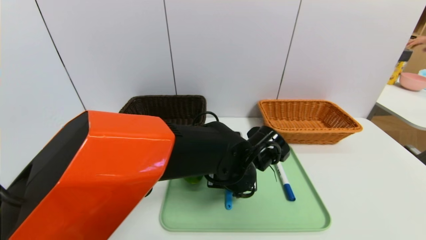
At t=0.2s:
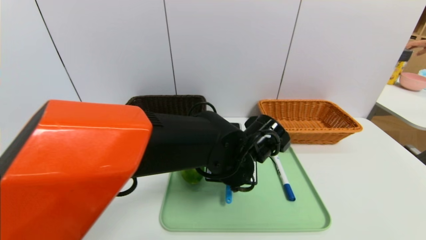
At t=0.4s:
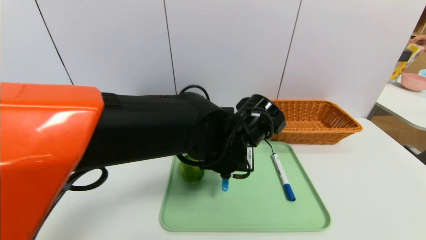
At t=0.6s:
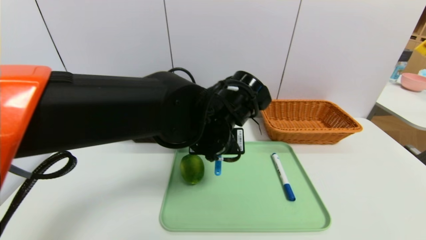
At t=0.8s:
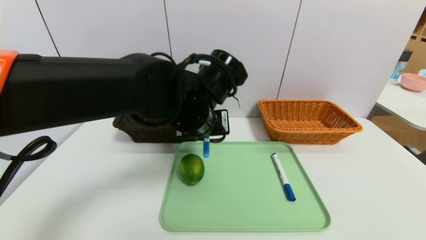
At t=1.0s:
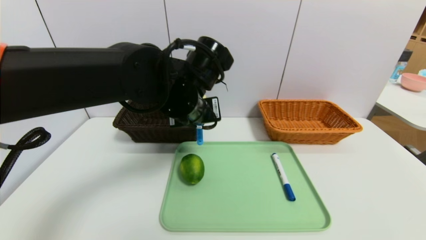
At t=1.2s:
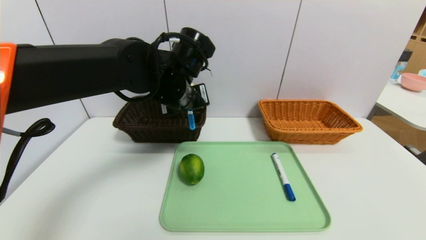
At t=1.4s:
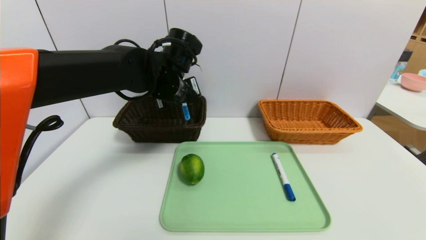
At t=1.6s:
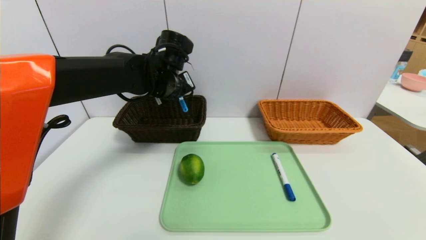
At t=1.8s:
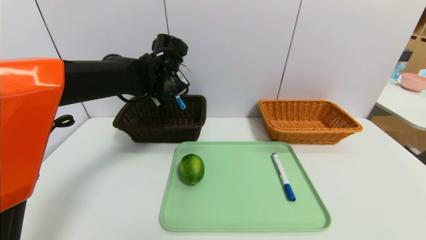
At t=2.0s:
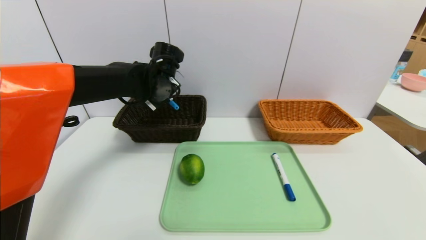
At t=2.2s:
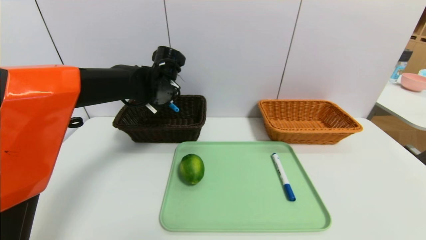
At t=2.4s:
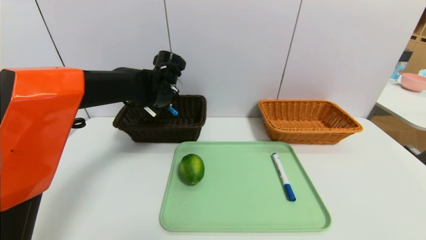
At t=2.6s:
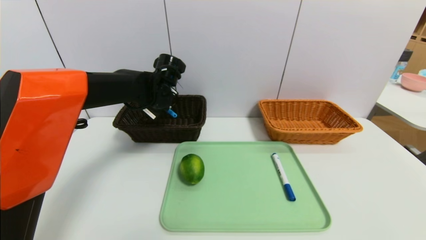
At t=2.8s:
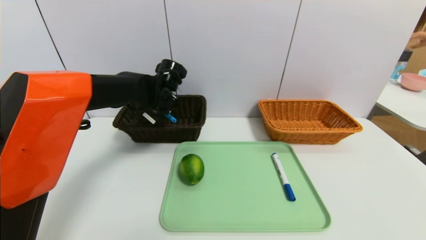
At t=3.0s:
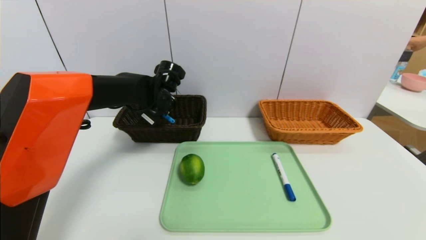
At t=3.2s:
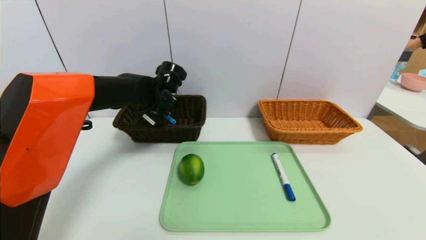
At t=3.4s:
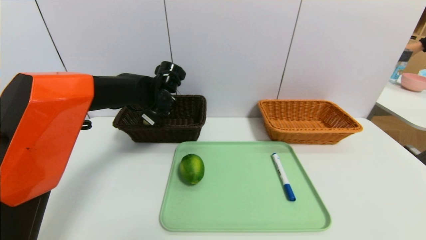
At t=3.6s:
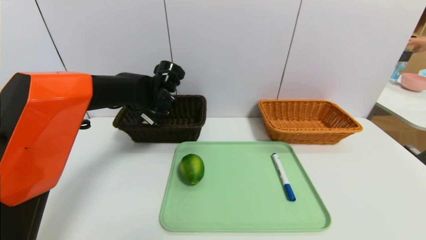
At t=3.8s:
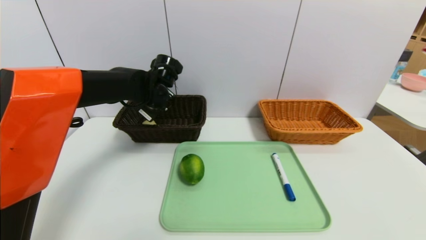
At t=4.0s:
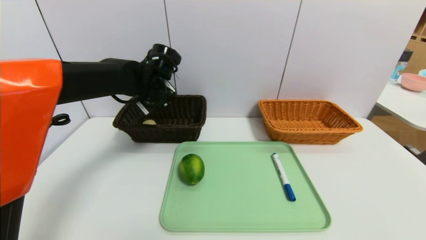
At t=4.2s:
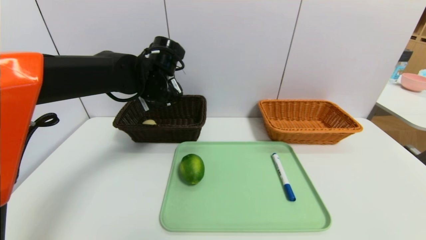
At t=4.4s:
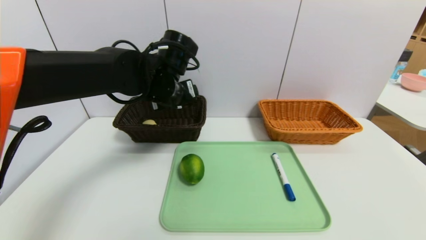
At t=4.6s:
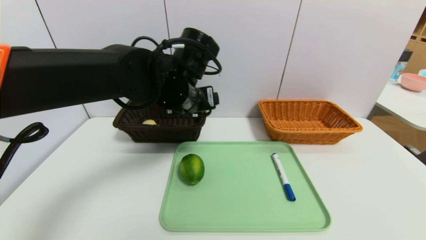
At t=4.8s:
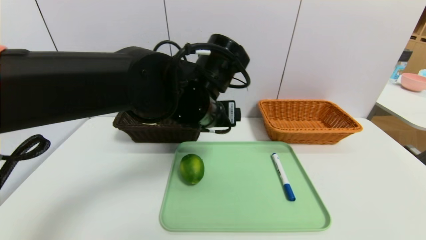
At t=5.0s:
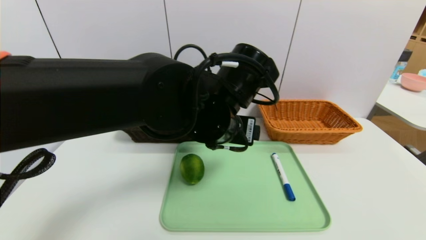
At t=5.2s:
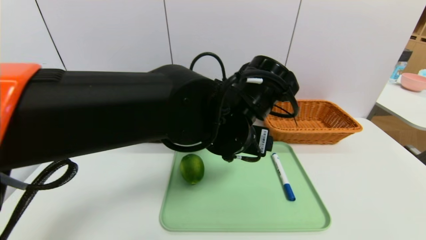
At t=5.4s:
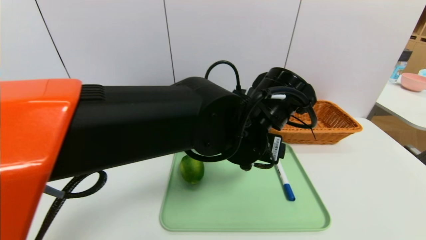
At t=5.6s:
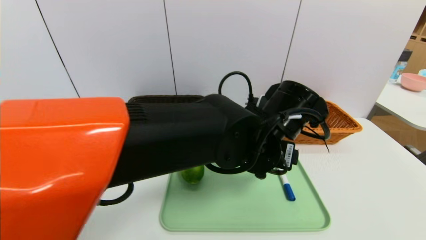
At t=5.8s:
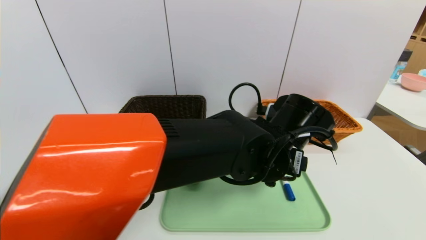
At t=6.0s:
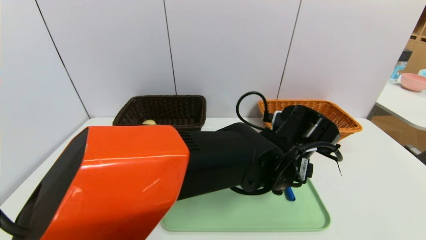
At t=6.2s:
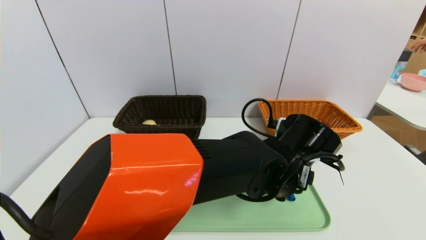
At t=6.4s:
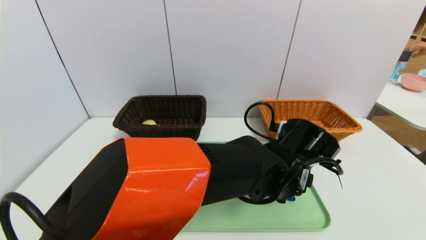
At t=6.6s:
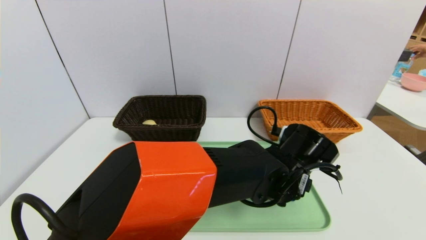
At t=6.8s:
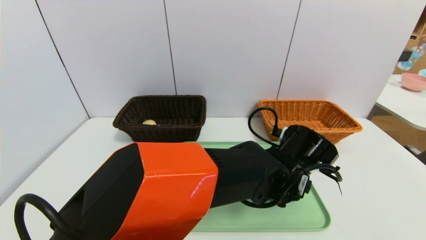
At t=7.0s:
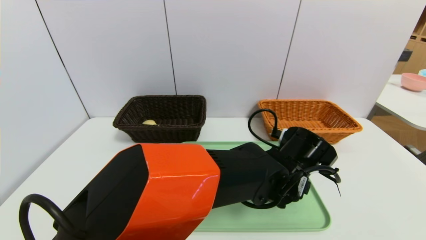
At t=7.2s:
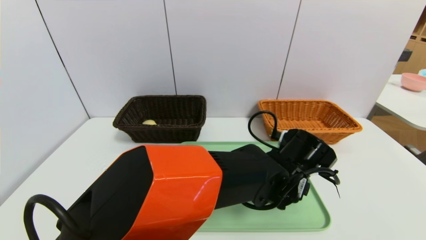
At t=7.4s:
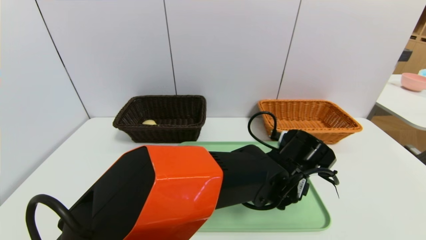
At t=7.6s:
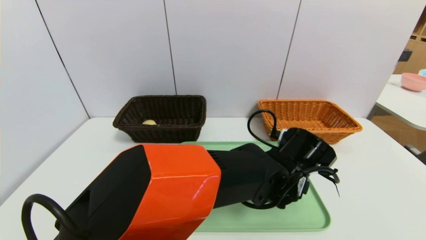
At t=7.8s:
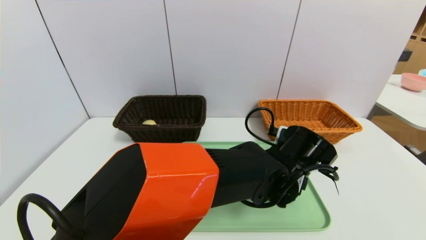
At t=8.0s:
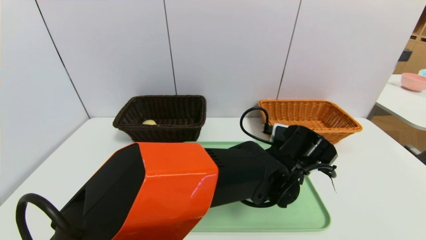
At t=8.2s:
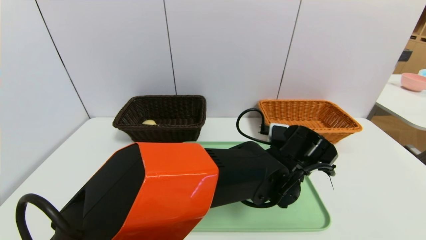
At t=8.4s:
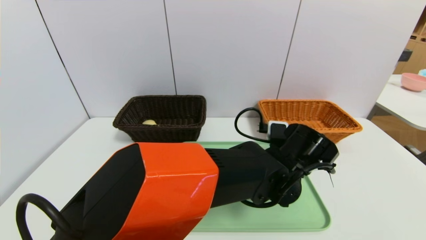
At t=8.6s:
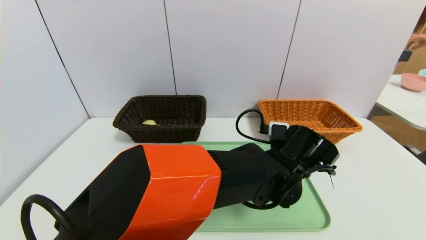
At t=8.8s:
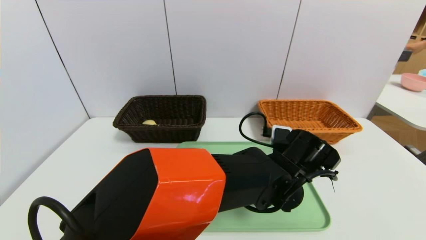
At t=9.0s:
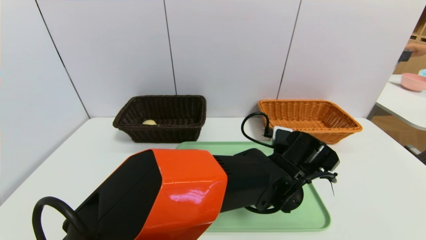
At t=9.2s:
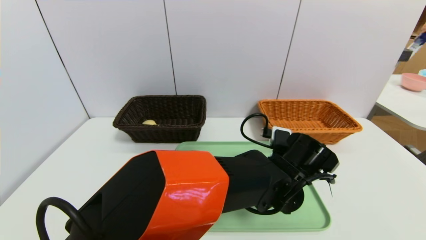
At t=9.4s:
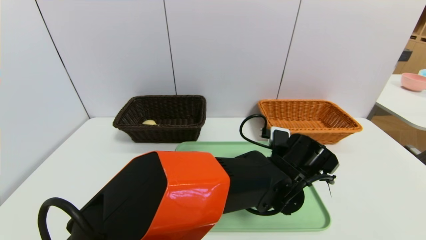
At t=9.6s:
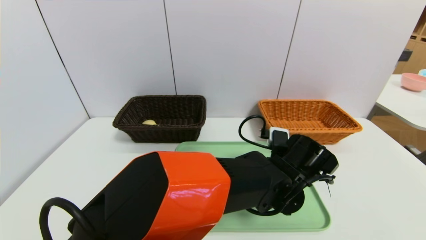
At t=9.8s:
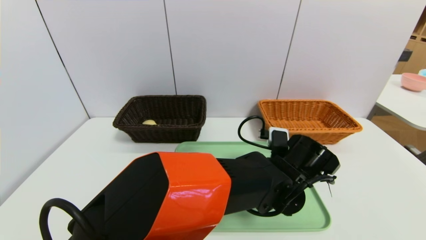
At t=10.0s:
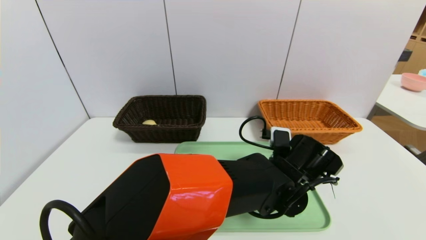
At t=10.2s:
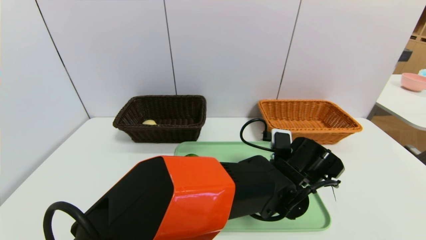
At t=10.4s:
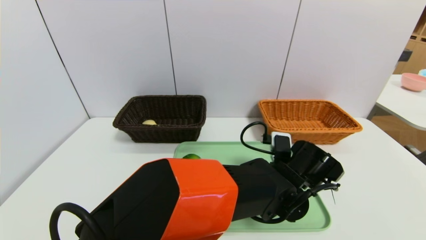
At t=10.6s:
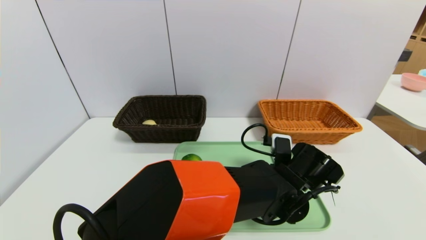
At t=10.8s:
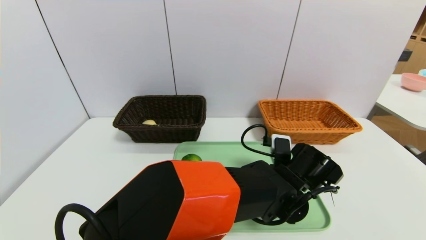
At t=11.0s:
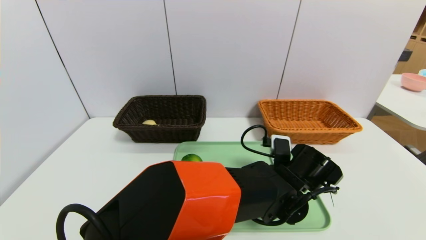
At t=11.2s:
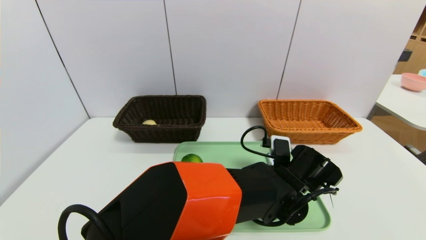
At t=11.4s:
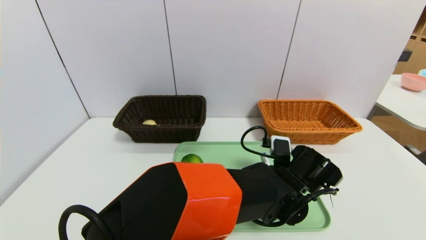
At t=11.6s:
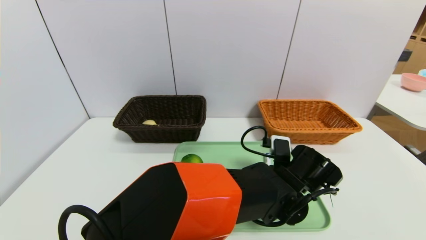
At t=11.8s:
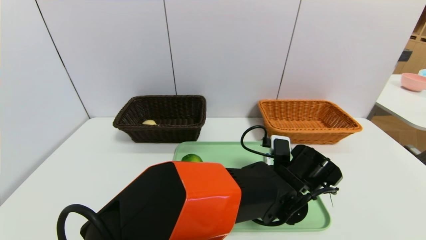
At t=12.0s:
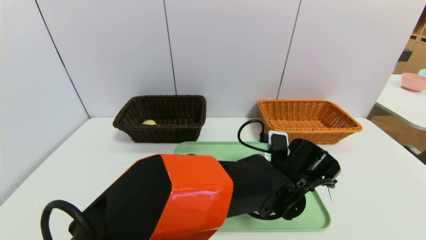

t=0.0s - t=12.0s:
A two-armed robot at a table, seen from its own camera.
Task of the whole recording: place the food in the right basket with the right gripper, and place the non food items in the left basket with the left gripper.
Step, t=0.0s - t=3.6s: Grasp the spoon and put it in the left basket.
t=0.0s - t=1.6s: The left gripper travels to the left, forward and upward by about 25 cm.
t=1.6s - t=3.0s: The left gripper travels downward by about 5 cm.
t=3.0s - t=4.4s: The left gripper shifts some 10 cm backward and upward, and opens.
t=4.4s - t=6.0s: The left gripper shifts approximately 25 cm to the right, backward and downward.
t=7.6s - t=10.4s: The grippers stay close to where they were, moving slightly.
t=10.4s - t=12.0s: The left gripper closes up.

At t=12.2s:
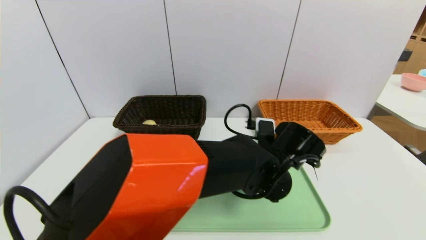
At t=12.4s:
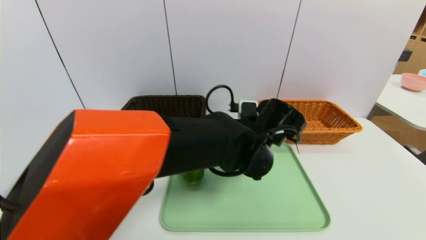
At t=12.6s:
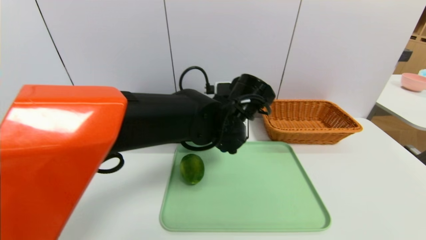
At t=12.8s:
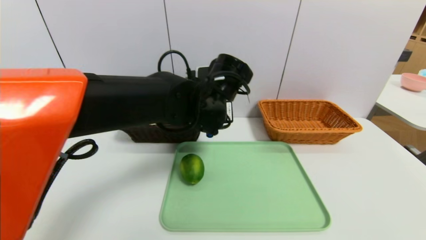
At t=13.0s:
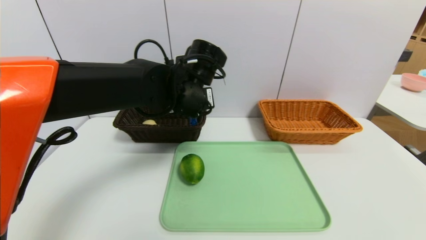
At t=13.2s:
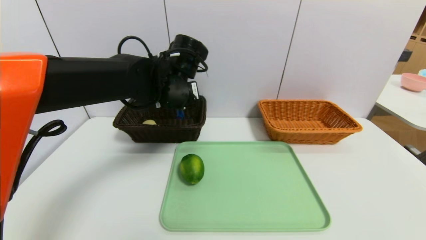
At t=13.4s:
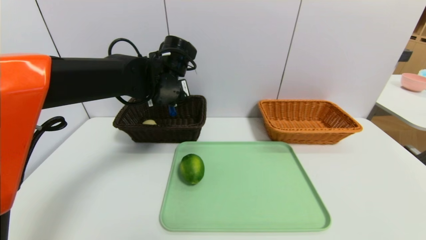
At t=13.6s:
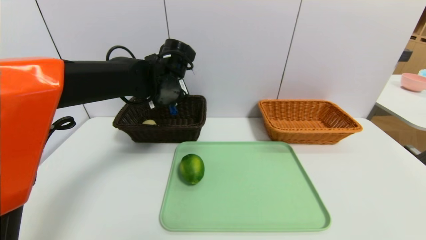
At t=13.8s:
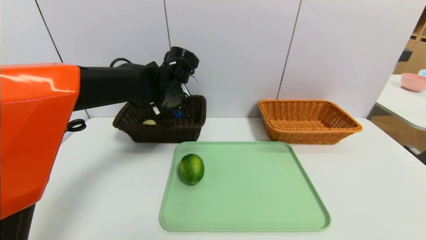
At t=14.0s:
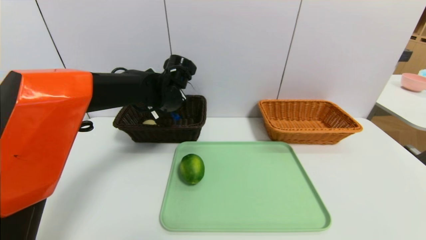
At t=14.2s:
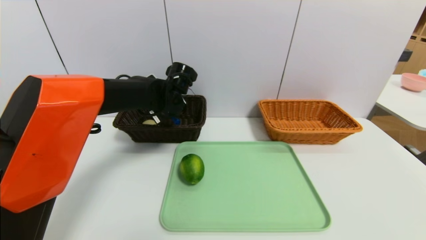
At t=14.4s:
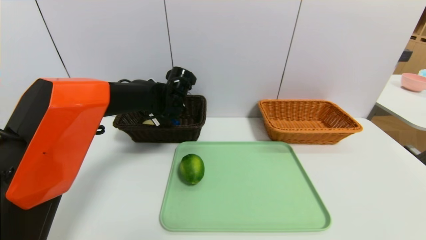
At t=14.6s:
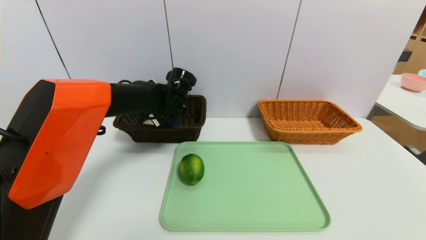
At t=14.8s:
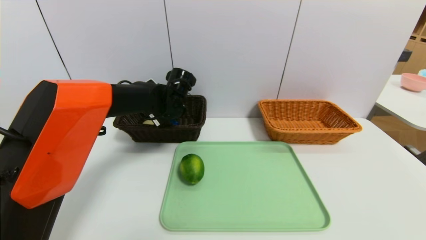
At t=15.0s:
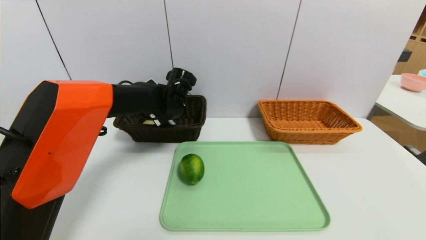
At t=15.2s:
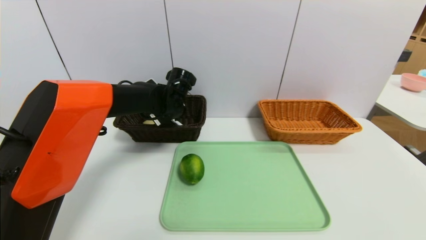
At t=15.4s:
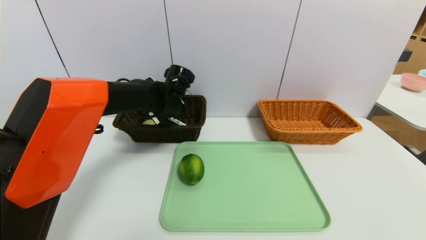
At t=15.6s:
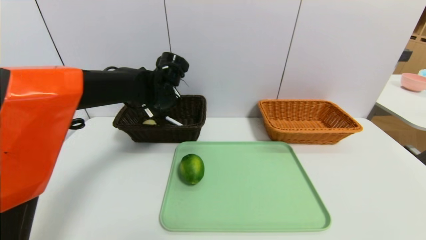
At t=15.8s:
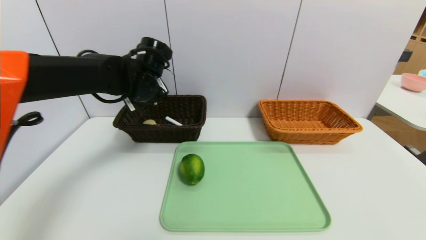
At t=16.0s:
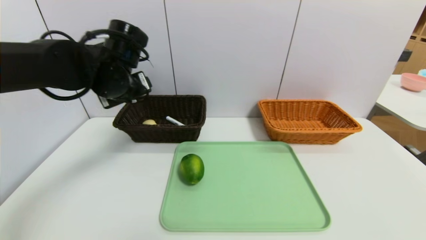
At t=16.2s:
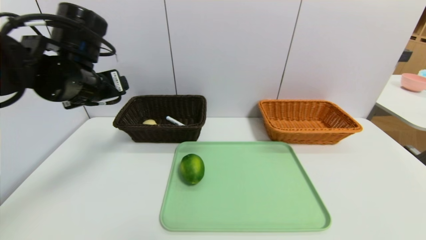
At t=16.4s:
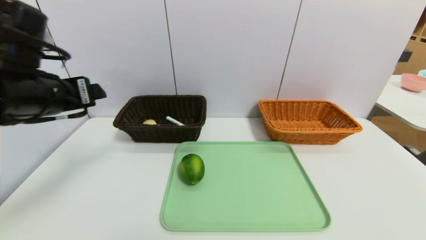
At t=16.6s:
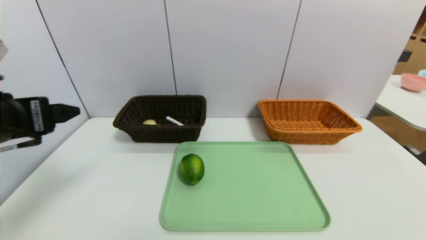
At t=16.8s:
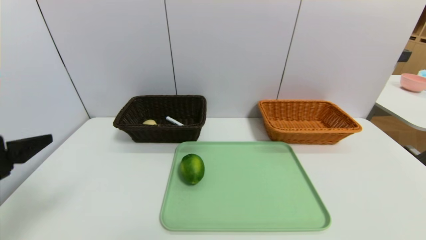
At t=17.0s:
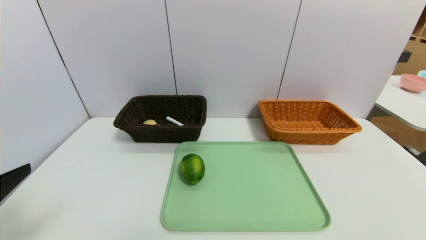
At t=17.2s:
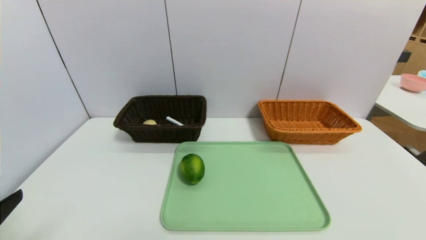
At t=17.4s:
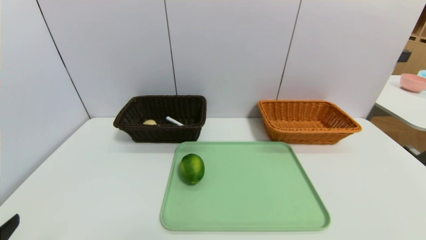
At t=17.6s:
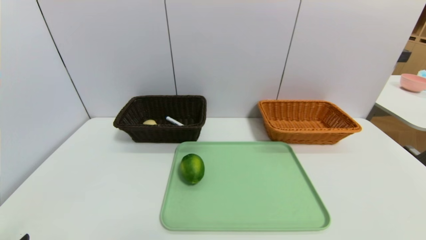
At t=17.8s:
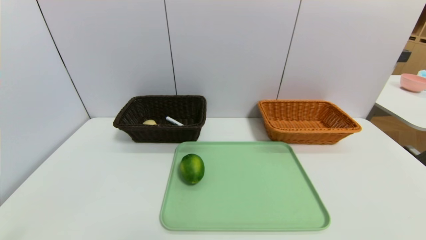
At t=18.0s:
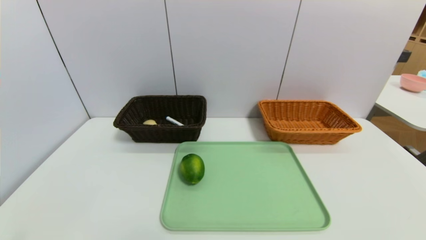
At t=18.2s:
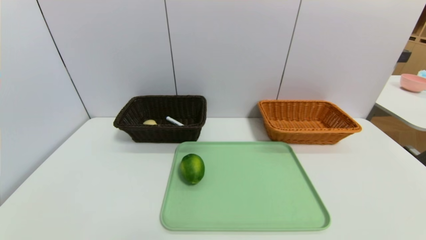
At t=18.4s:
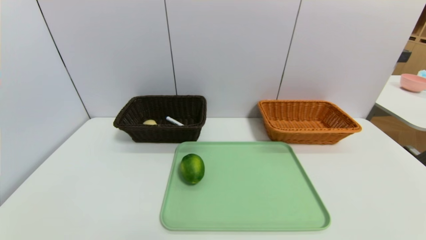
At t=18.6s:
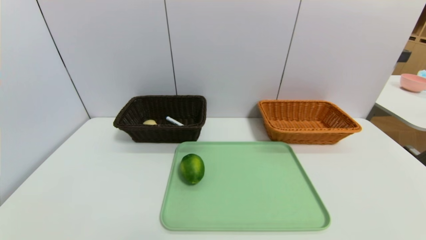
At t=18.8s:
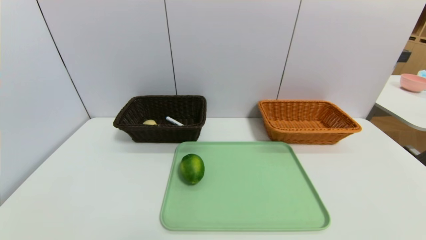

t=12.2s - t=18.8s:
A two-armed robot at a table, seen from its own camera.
Task of the whole recording: place the food in the right basket with the right gripper, and place the non food items in the left basket with the left gripper.
t=12.2s - t=13.8s: The left gripper moves to the left, forward and upward, approximately 25 cm.
t=13.8s - t=15.4s: The left gripper opens up.
t=15.4s - t=17.2s: The left gripper goes roughly 40 cm backward and to the left.
